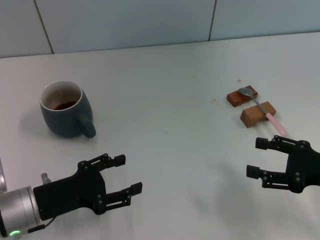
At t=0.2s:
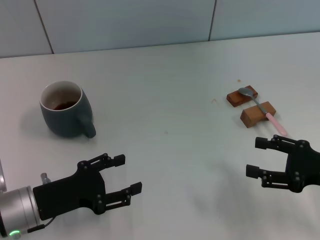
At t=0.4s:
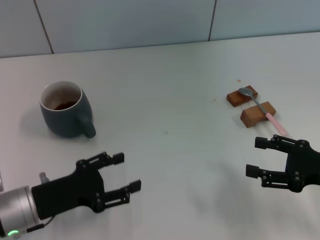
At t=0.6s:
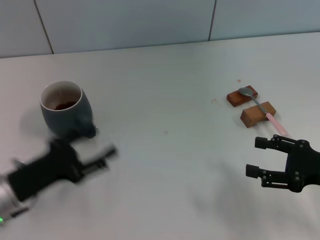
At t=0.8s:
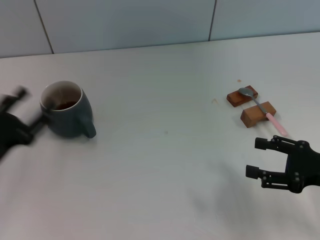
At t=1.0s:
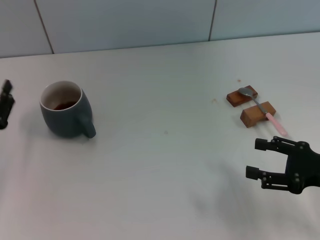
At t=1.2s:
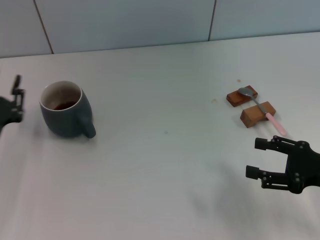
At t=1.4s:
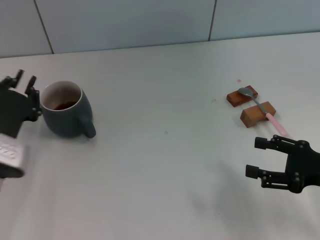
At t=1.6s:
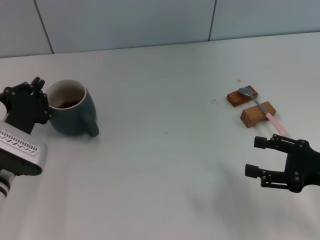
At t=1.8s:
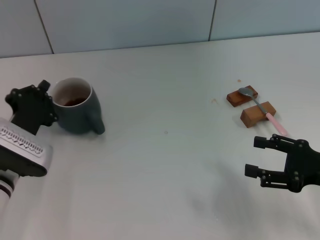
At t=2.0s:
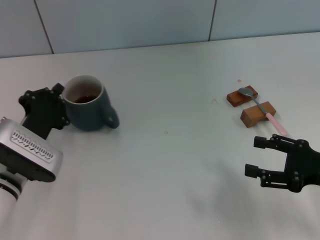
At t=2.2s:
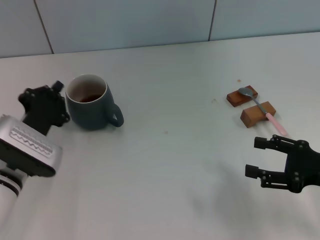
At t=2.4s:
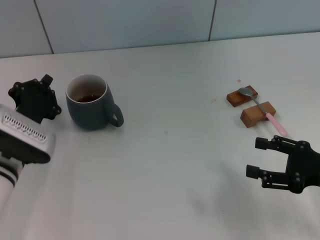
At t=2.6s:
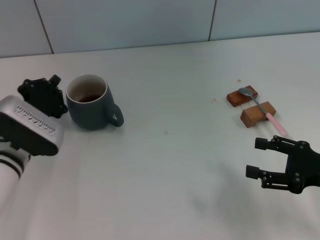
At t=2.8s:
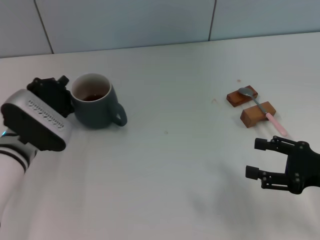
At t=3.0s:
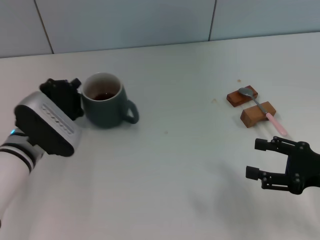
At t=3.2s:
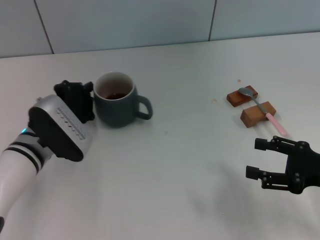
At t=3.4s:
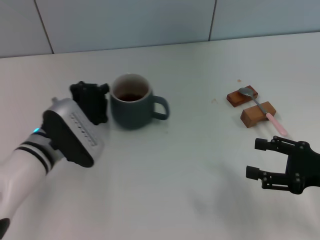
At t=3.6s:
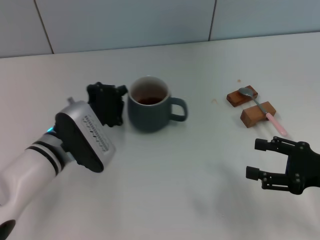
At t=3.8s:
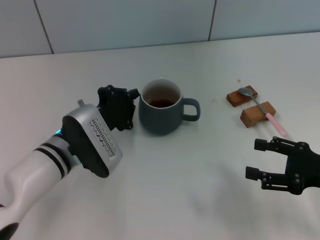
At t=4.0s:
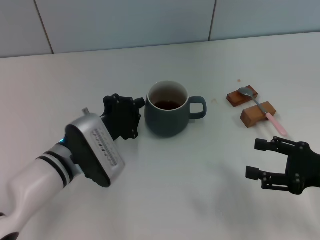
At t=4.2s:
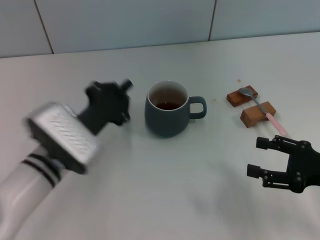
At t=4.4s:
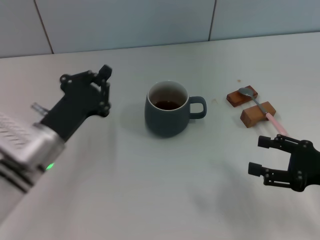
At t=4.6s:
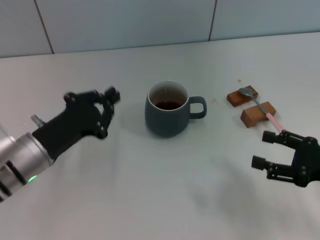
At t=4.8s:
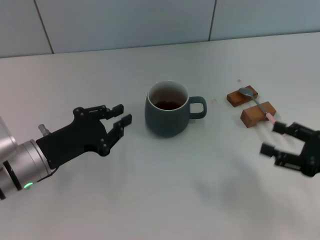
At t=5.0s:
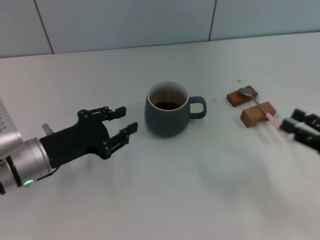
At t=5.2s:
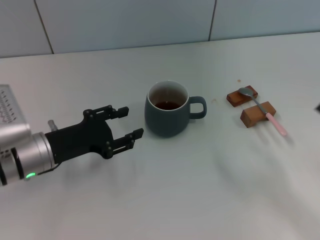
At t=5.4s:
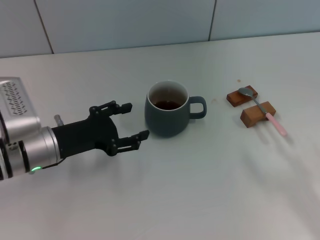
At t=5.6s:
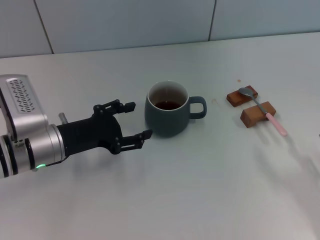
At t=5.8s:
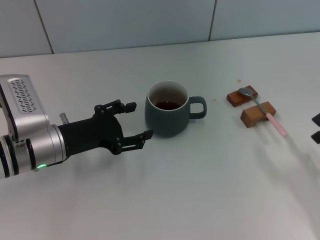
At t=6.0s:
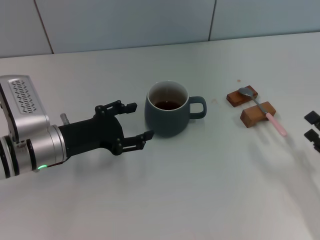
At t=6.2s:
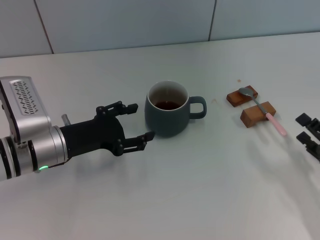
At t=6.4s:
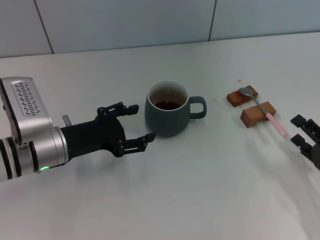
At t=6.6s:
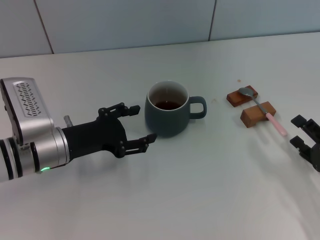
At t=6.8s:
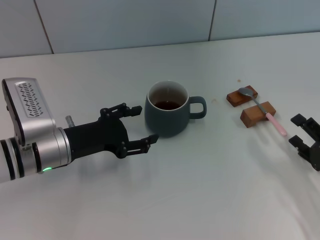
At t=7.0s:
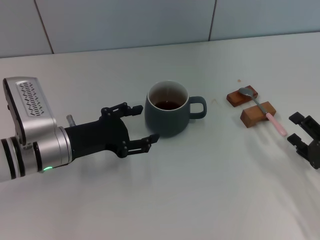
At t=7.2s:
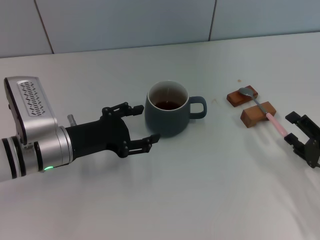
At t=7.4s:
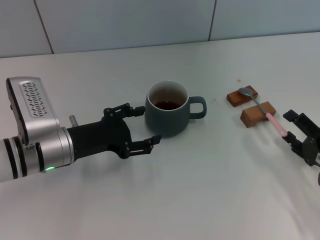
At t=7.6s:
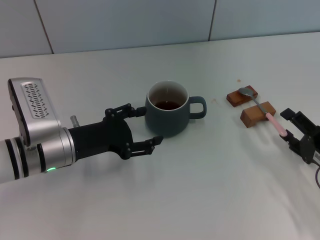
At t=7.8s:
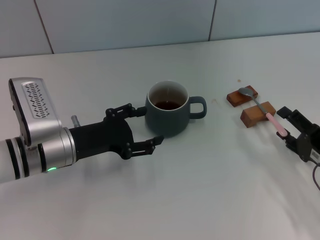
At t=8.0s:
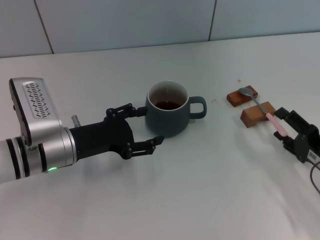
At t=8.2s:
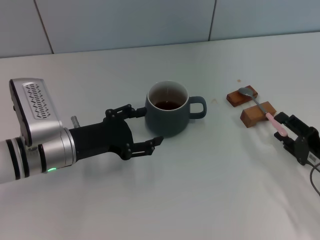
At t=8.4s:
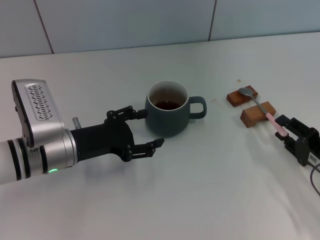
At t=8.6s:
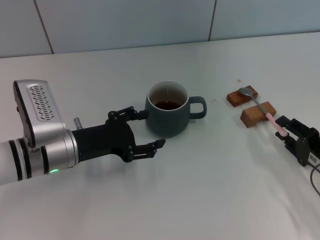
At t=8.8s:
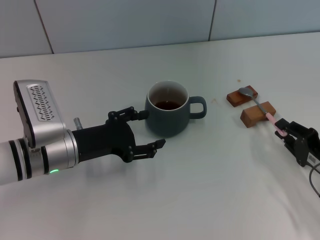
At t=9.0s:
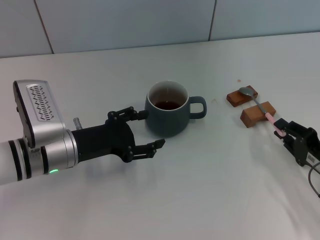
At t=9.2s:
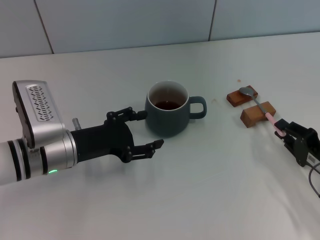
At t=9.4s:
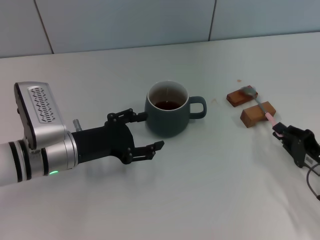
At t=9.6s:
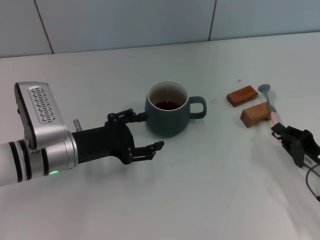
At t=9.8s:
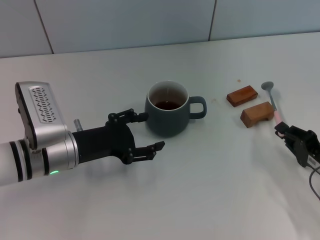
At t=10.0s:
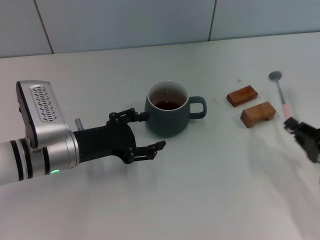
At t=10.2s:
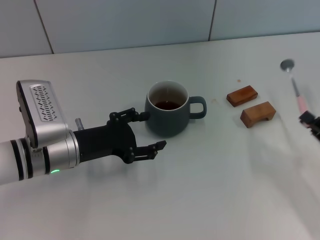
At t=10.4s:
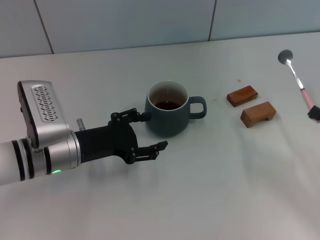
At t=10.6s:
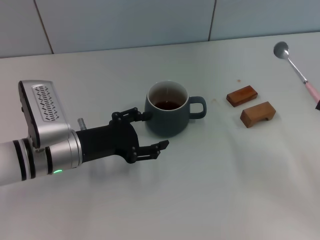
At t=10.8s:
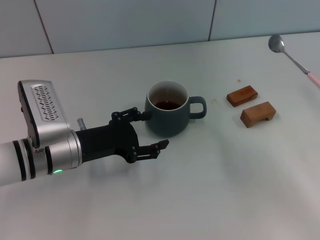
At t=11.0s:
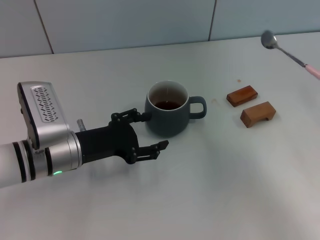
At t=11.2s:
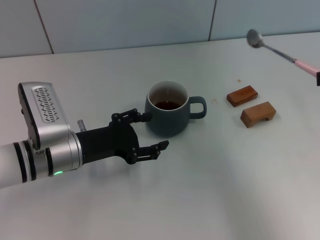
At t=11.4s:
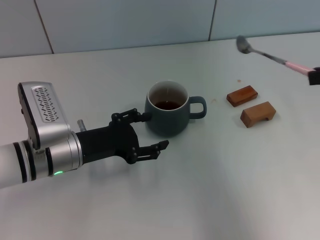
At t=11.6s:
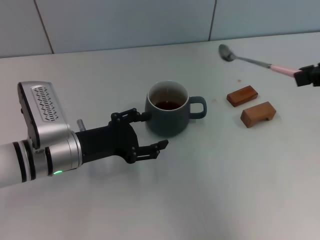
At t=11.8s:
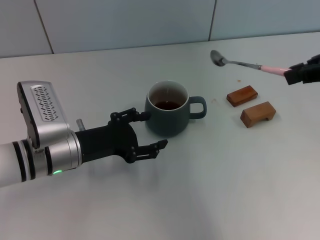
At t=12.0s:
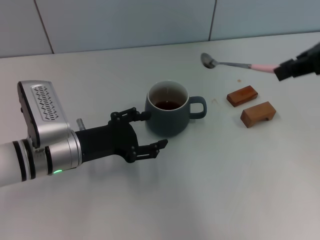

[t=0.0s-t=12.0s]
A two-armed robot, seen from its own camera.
Task of the whole recording: Move the grey cup to the center, lift the pink spoon, stir it three times in the cup, and put the spoon into the cup.
Step, t=0.0s to t=5.8s: Move the cup with coffee to the center of view with the left gripper.
Step, t=6.0s to t=10.0s: Pick up the spoon with the right gripper.
t=0.0s to t=1.6s: The left gripper goes approximately 5 cm forward, and closes its fingers.
t=1.6s to t=3.0s: The left gripper shifts by roughly 5 cm.
t=3.0s to t=4.4s: The left gripper changes place by some 5 cm.
t=4.4s to t=6.0s: The left gripper opens, while the right gripper is displaced downward by about 5 cm.
t=6.0s to t=7.6s: The grippers move only a little.
t=7.6s to t=9.0s: The right gripper closes its fingers.
t=9.0s to t=10.4s: The right gripper goes some 10 cm upward and to the right.
t=10.4s to t=12.0s: The right gripper heads upward, covering approximately 25 cm.

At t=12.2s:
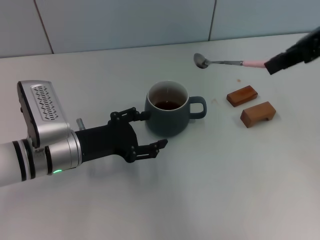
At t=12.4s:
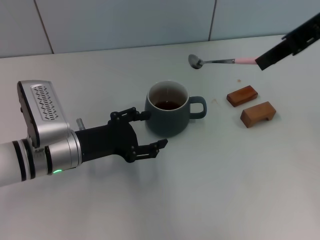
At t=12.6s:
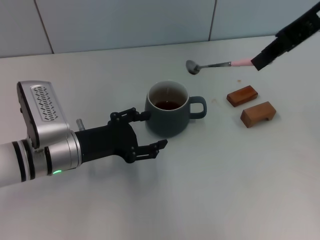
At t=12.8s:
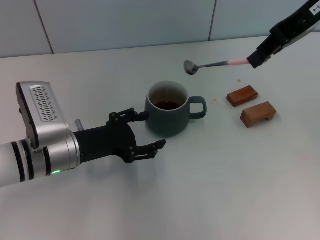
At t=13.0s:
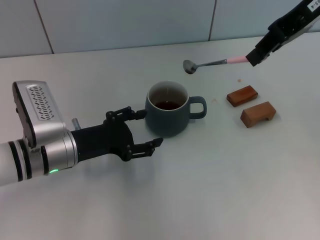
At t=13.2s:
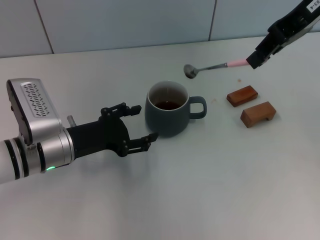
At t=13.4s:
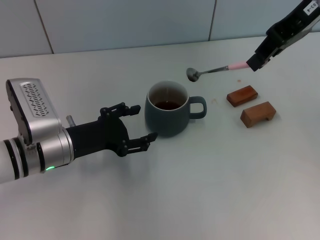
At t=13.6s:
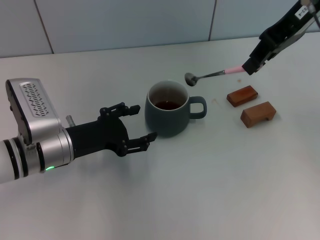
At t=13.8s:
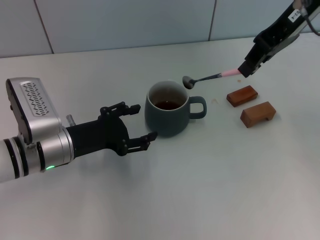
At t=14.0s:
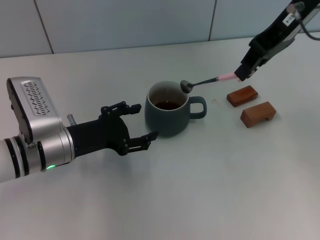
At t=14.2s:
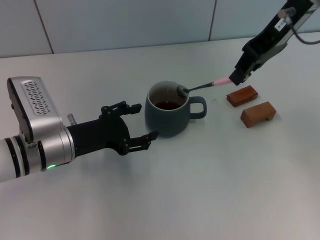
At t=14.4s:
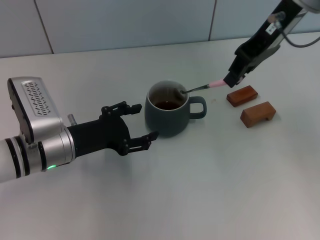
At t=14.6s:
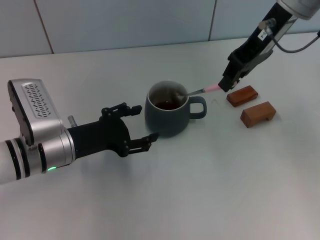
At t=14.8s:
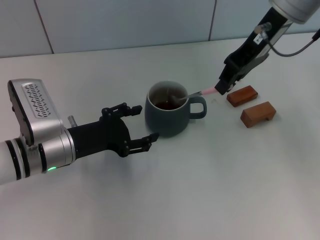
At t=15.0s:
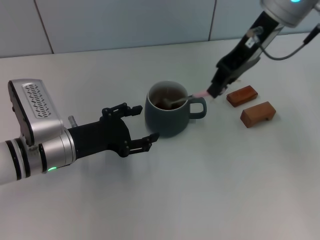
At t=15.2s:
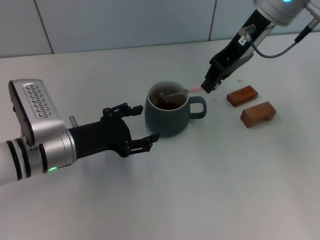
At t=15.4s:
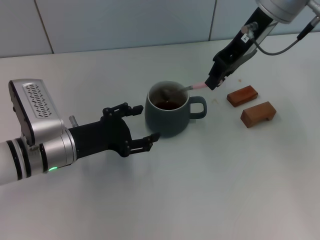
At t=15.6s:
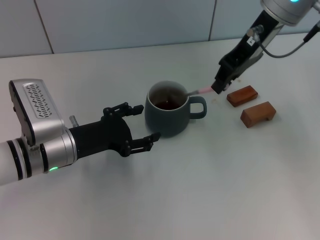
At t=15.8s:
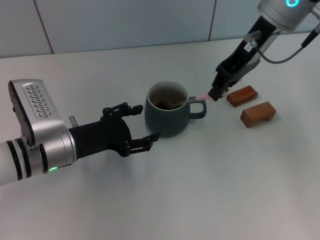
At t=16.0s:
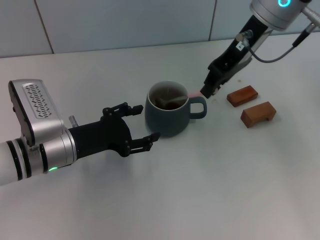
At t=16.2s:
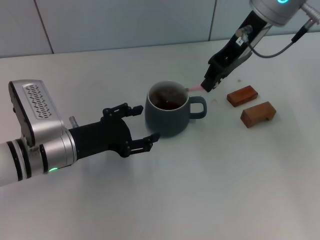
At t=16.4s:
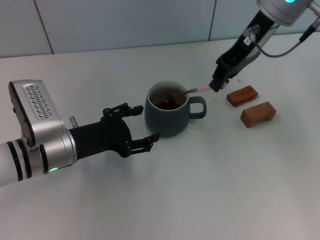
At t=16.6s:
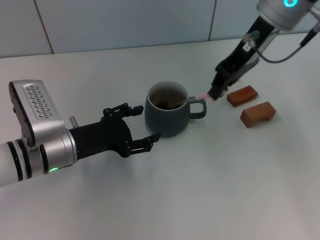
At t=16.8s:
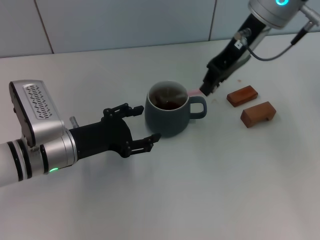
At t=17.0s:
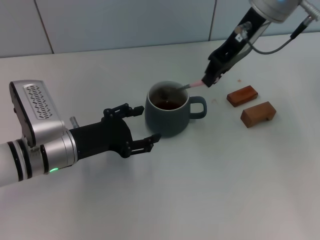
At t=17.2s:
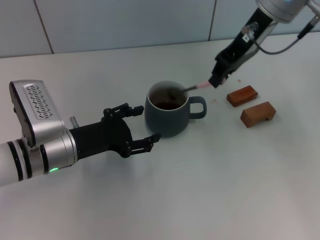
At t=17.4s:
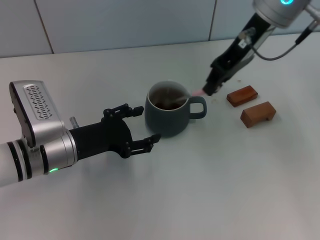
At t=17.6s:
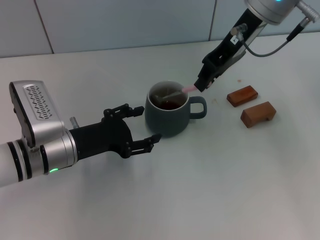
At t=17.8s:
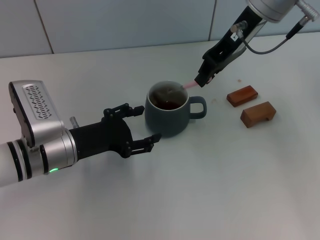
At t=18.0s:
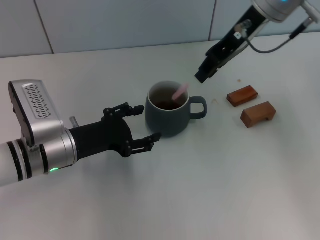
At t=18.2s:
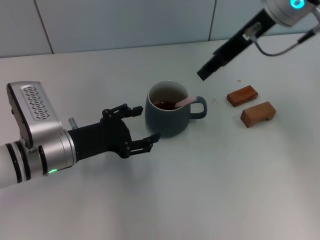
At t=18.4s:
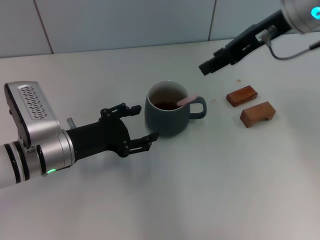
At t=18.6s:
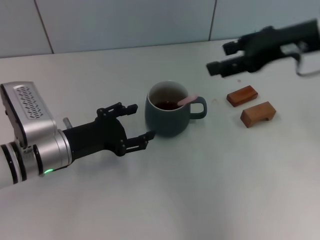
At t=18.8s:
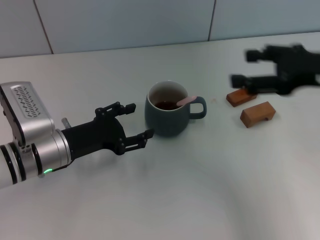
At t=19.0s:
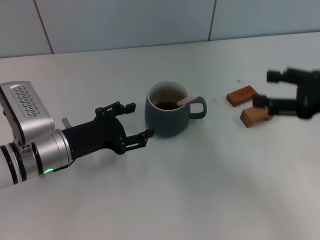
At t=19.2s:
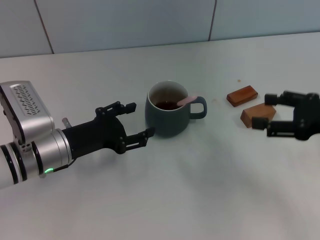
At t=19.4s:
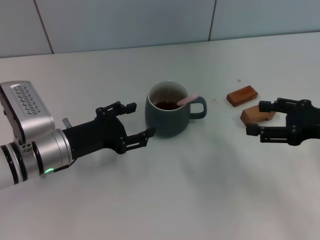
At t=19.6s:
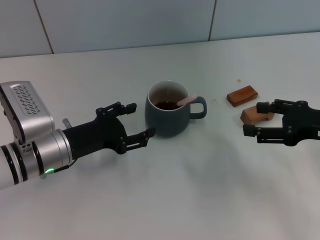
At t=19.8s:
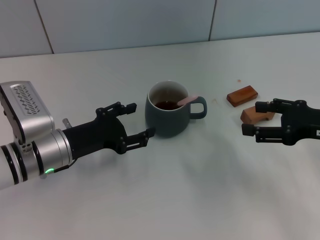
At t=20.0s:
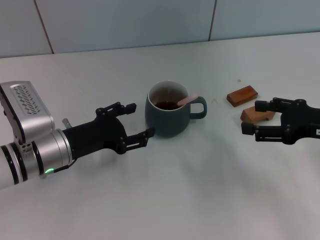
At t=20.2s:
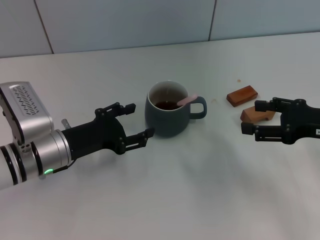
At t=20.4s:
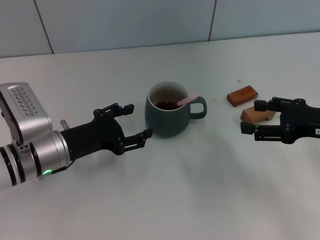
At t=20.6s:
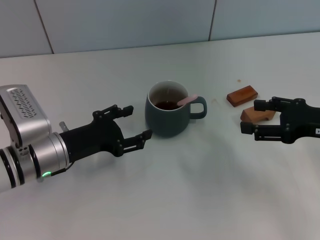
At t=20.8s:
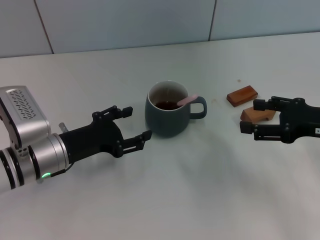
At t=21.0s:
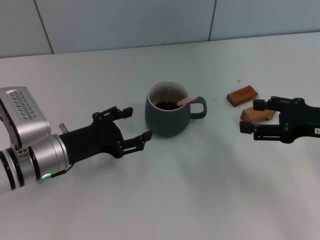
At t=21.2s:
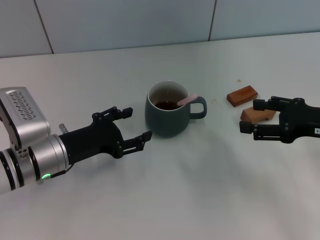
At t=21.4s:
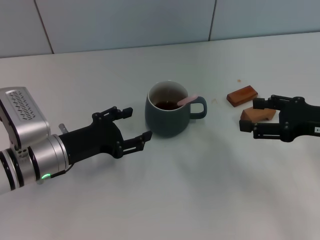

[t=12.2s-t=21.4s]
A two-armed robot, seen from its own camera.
Task of the whole recording: Move the grey cup to the center, lift the pink spoon, stir it three times in the cup, and put the spoon into the cup.
Step, t=12.2s to t=18.4s: Stir the coffee in the cup with the right gripper.
t=12.2s to t=13.8s: The right gripper travels forward by about 10 cm.
t=13.8s to t=15.2s: The right gripper moves about 5 cm.
t=15.2s to t=16.8s: Neither gripper changes place.
t=16.8s to t=18.4s: The right gripper shifts by approximately 5 cm, and opens.
t=18.4s to t=19.8s: The right gripper travels downward, backward and to the right by roughly 20 cm, and opens its fingers.
t=19.8s to t=21.4s: Both grippers stay about where they are.
